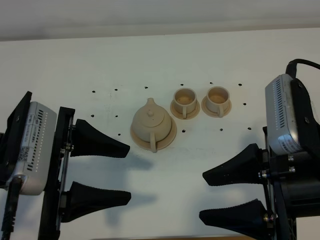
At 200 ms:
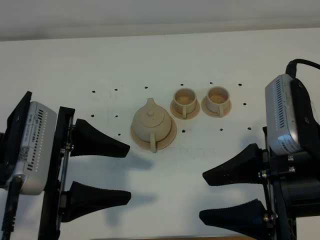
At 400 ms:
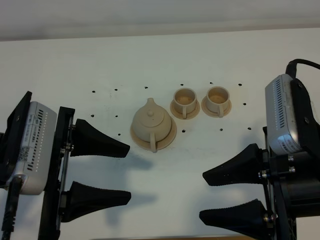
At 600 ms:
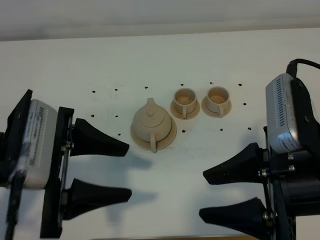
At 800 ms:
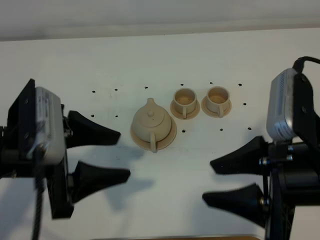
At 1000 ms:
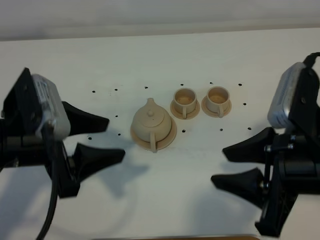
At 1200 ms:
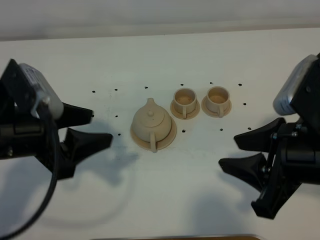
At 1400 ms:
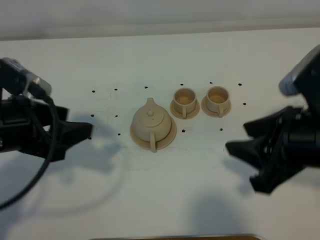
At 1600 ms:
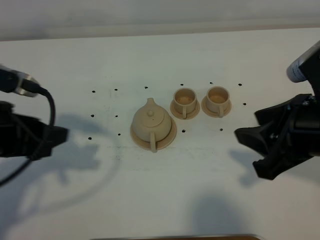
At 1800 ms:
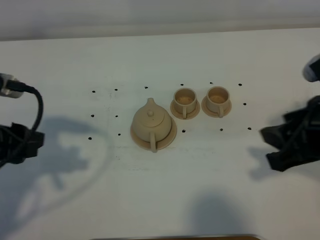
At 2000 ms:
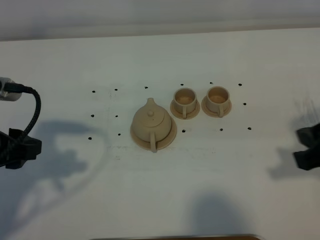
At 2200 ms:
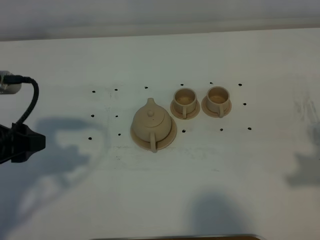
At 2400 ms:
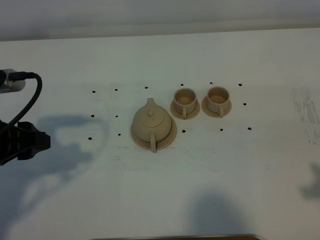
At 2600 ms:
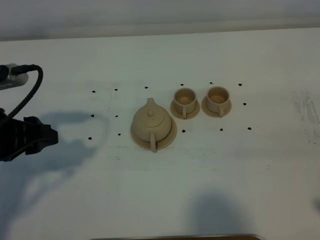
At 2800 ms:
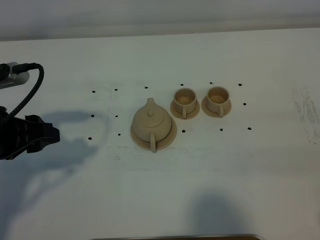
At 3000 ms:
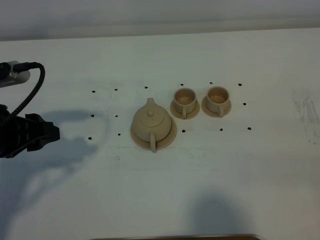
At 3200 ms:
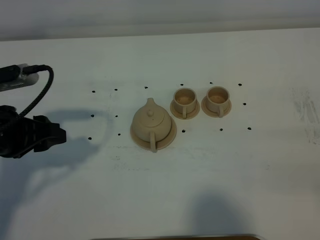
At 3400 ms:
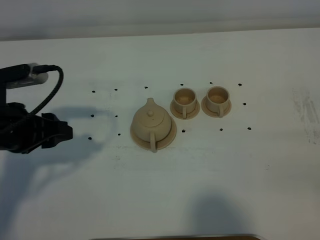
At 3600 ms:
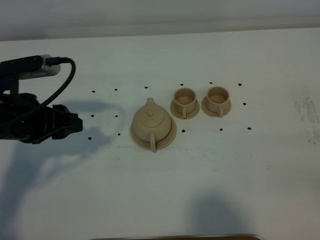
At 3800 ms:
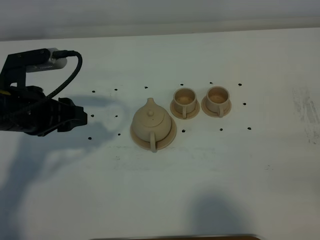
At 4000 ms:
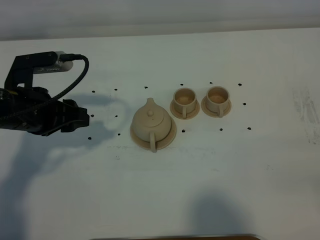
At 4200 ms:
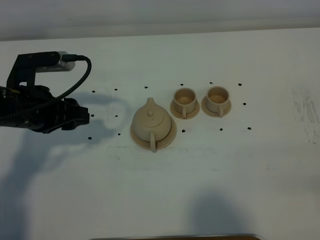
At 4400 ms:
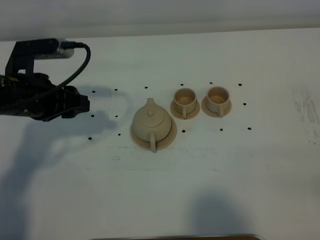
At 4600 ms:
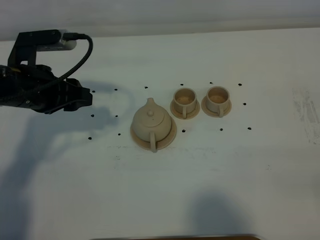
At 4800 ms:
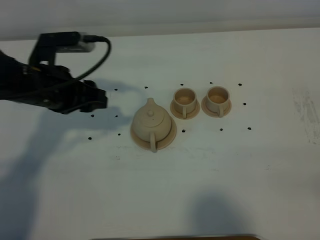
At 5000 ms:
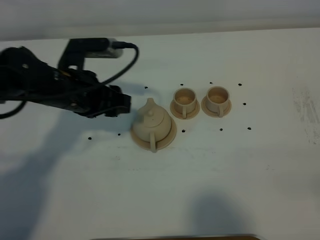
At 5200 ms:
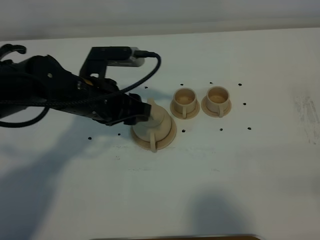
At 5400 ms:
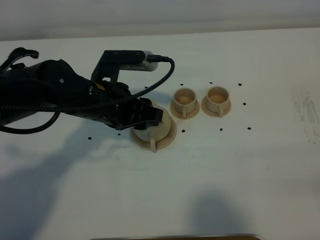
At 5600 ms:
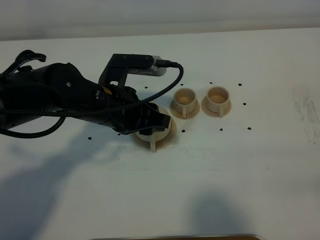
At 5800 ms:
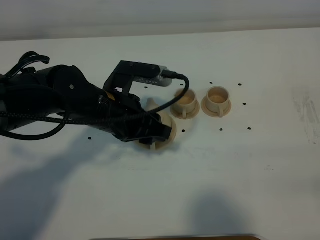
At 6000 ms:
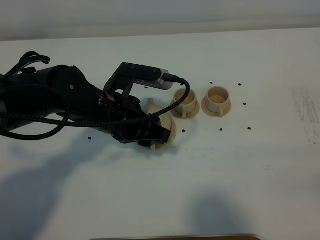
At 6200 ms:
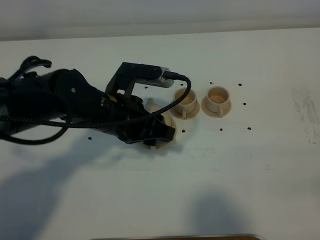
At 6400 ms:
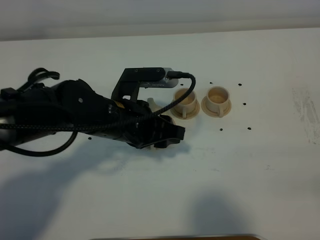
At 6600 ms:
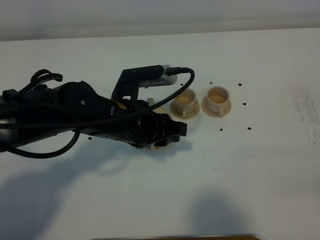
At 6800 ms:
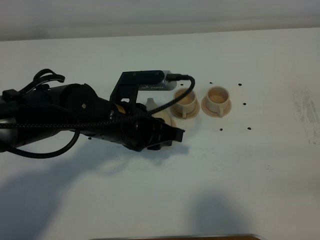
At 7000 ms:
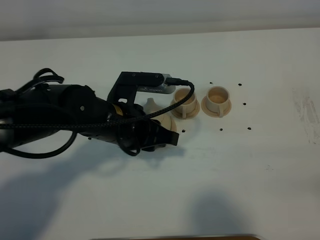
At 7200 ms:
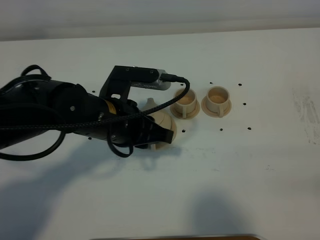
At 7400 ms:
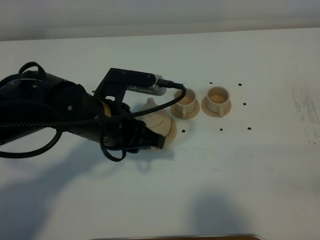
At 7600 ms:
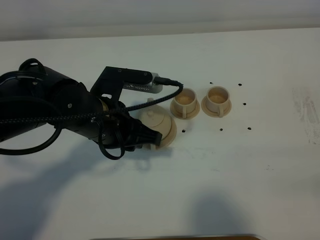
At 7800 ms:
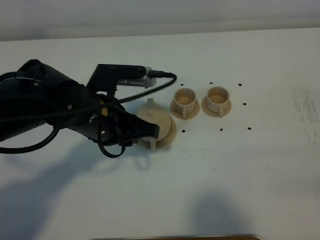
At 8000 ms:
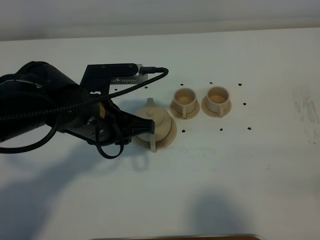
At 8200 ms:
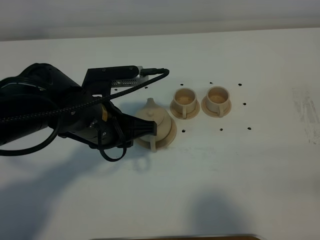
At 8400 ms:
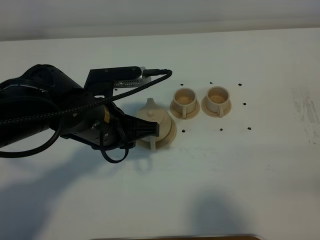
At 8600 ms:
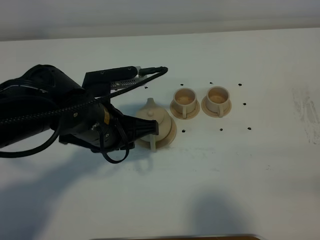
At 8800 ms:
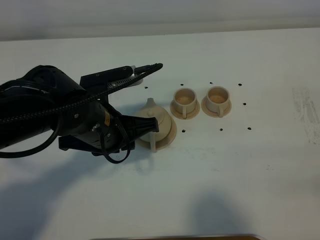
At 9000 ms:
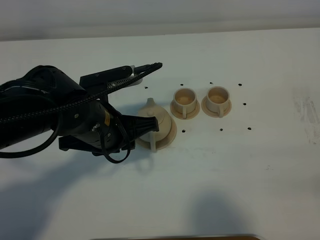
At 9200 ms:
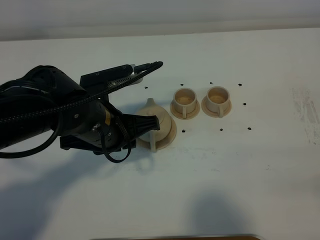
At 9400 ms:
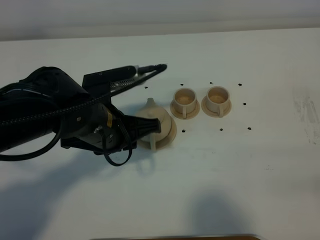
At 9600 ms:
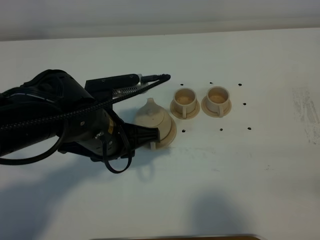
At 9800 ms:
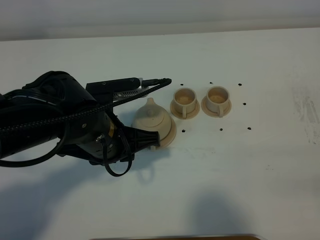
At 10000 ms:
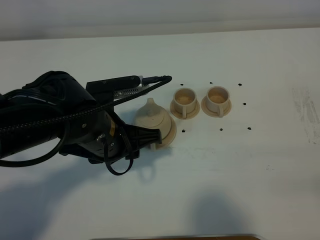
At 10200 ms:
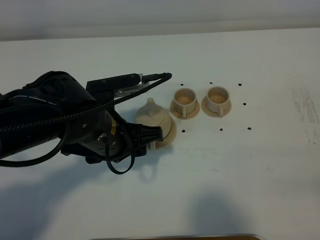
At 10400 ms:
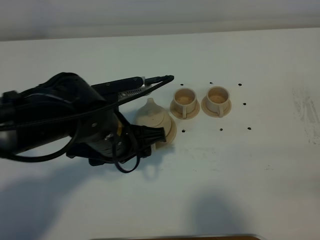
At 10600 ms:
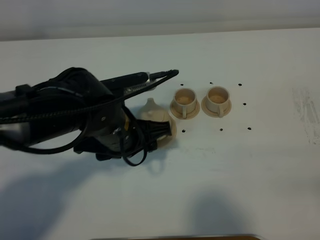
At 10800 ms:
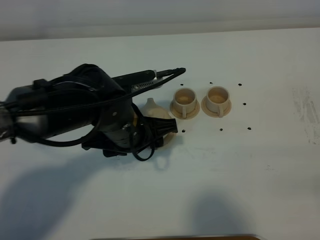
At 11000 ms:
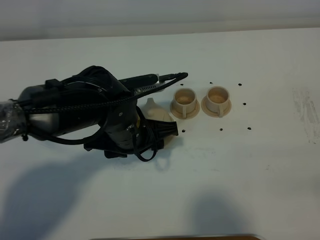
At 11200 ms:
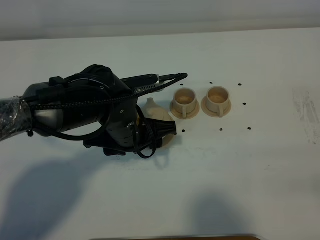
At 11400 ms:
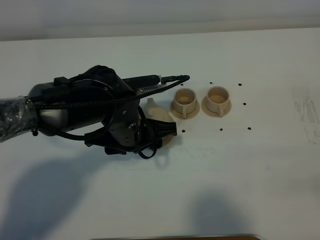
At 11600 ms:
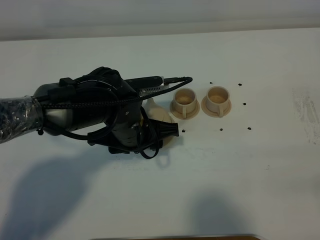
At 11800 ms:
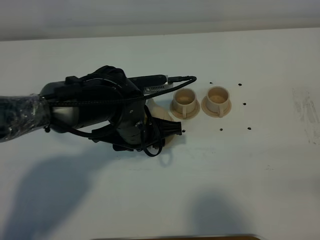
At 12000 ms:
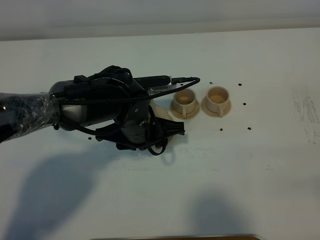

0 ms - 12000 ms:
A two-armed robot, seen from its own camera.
Task of the whole recording: grasp the brown teapot and pour the tea into the two brown teacups one by one, put the brown teapot back in its original place.
0 ms - 1600 ms: The right gripper is displaced forward by about 5 cm. The left gripper shifts about 10 cm to the left.
1600 ms - 3000 ms: The right gripper goes about 15 cm backward and to the right.
3000 ms - 4400 ms: The left gripper heads forward, covering approximately 10 cm.
4400 ms - 6000 ms: The left gripper shifts about 15 cm to the right.
6000 ms - 7600 ms: There are only small adjustments of the grippers.
9000 ms - 10400 ms: The left gripper opens up.
10400 ms - 12000 ms: The left gripper moves approximately 10 cm.

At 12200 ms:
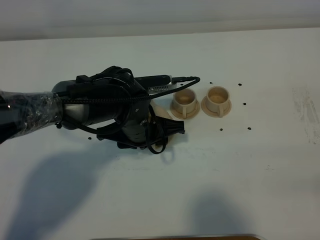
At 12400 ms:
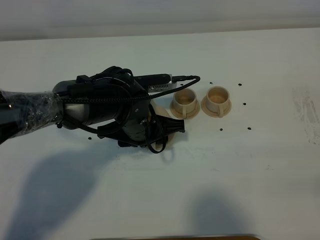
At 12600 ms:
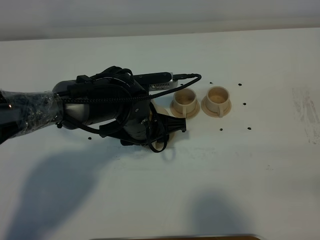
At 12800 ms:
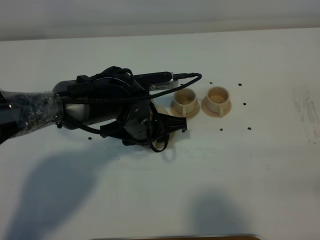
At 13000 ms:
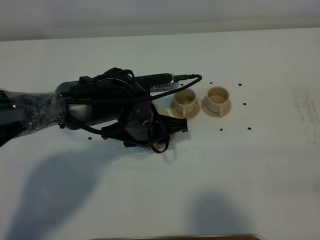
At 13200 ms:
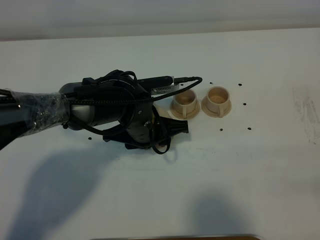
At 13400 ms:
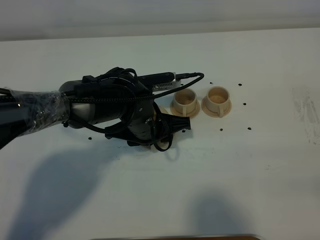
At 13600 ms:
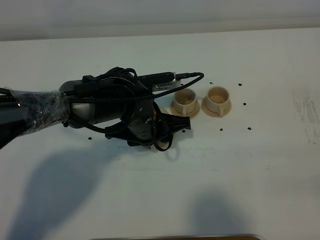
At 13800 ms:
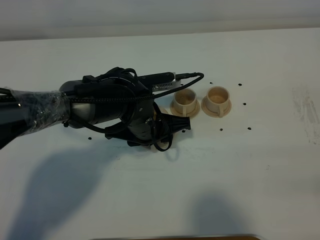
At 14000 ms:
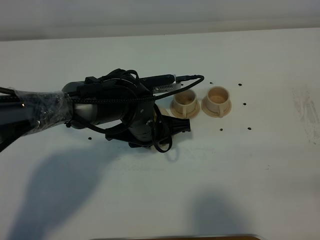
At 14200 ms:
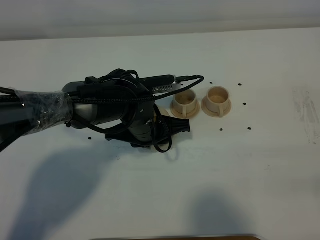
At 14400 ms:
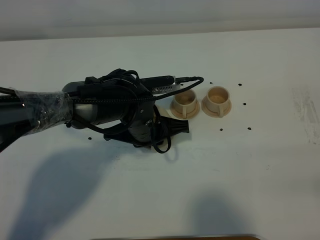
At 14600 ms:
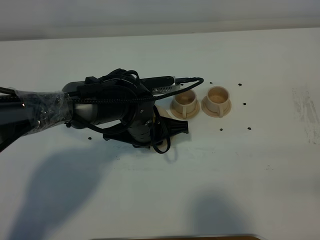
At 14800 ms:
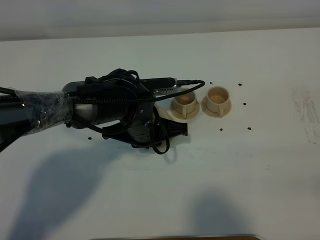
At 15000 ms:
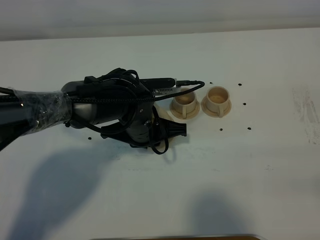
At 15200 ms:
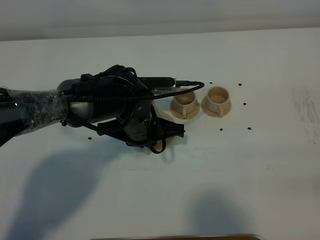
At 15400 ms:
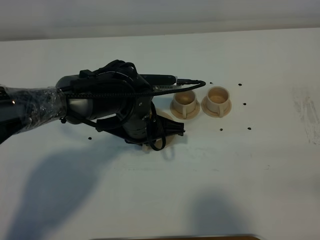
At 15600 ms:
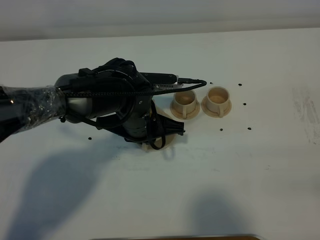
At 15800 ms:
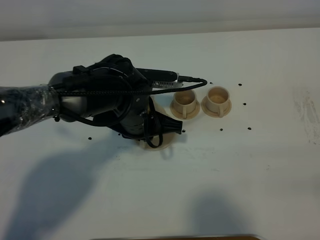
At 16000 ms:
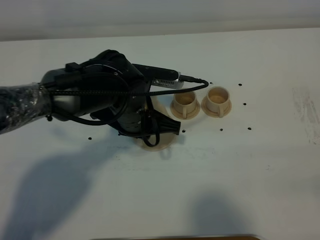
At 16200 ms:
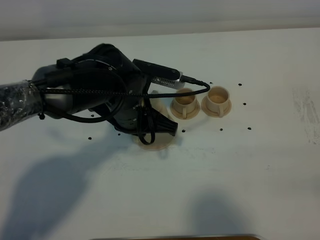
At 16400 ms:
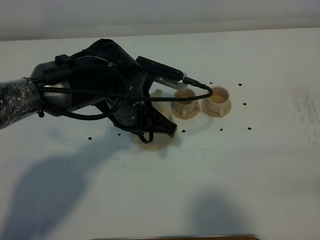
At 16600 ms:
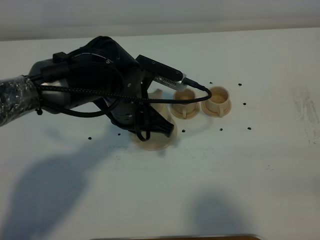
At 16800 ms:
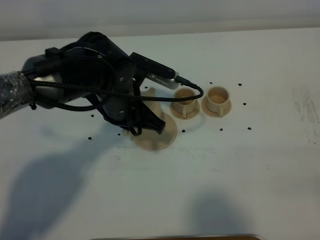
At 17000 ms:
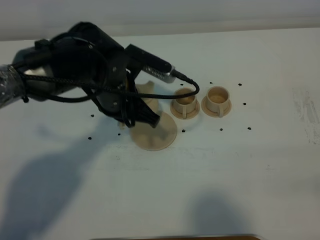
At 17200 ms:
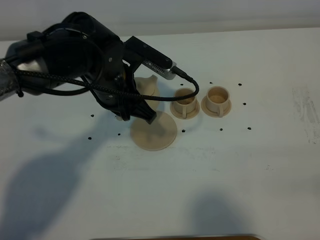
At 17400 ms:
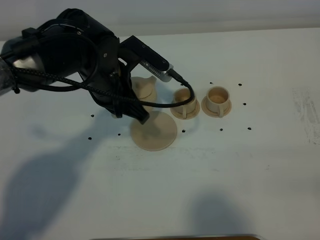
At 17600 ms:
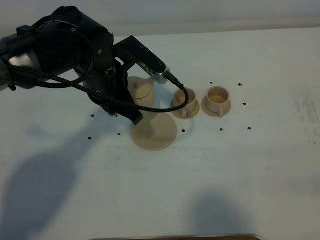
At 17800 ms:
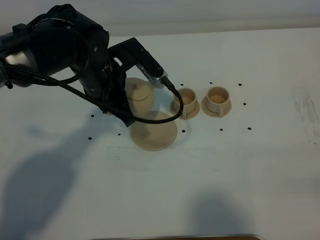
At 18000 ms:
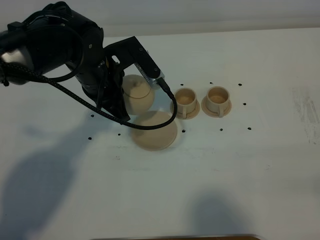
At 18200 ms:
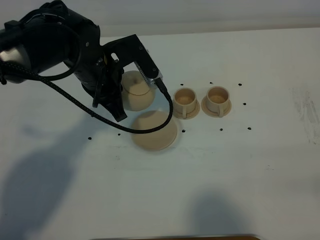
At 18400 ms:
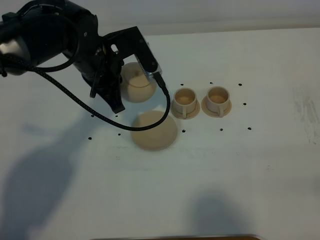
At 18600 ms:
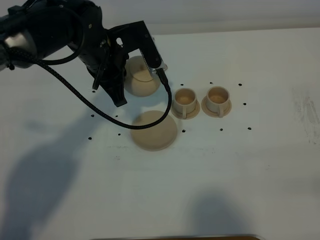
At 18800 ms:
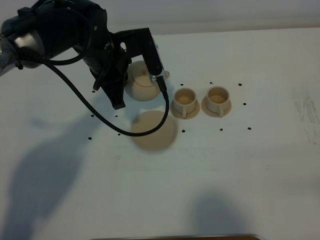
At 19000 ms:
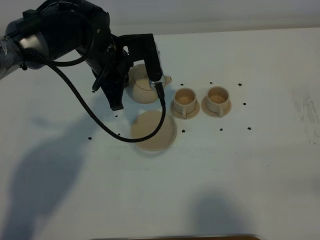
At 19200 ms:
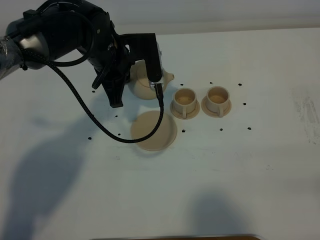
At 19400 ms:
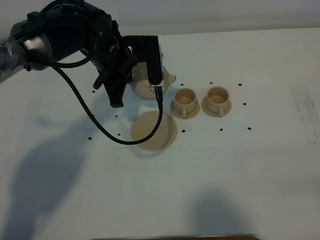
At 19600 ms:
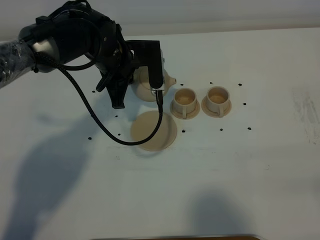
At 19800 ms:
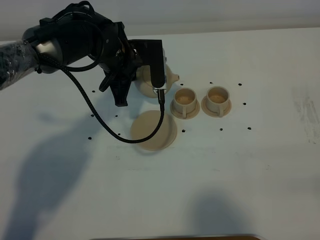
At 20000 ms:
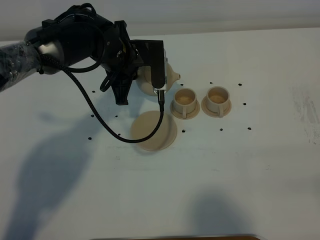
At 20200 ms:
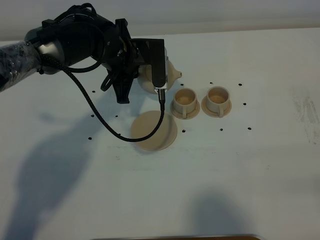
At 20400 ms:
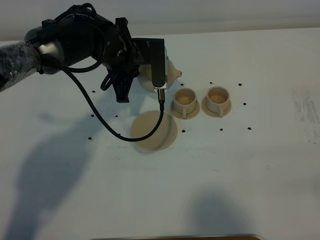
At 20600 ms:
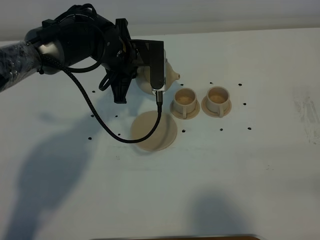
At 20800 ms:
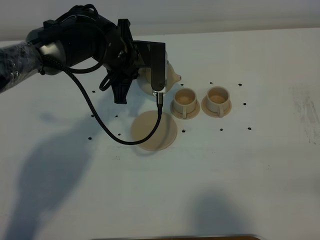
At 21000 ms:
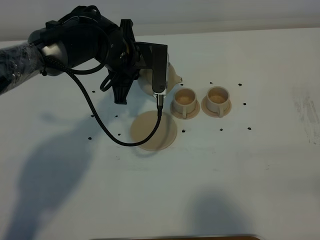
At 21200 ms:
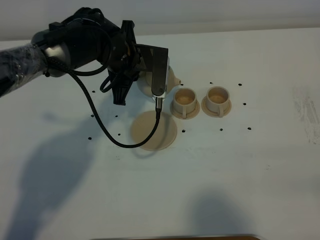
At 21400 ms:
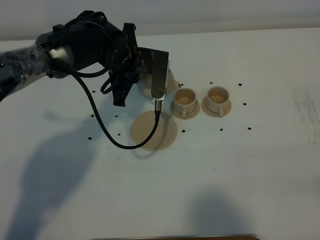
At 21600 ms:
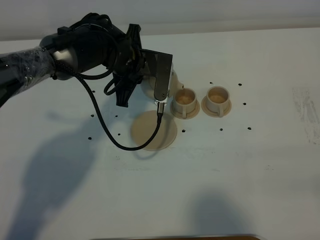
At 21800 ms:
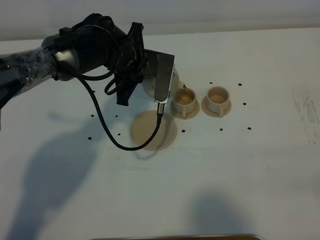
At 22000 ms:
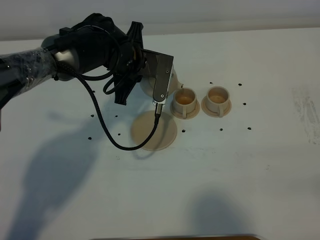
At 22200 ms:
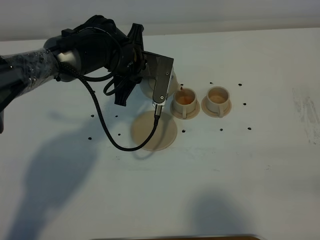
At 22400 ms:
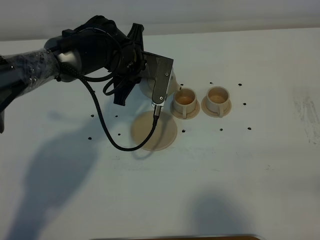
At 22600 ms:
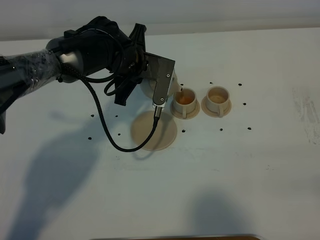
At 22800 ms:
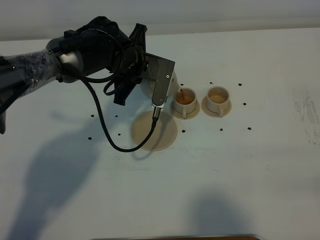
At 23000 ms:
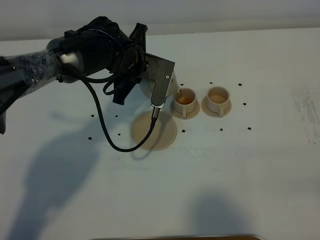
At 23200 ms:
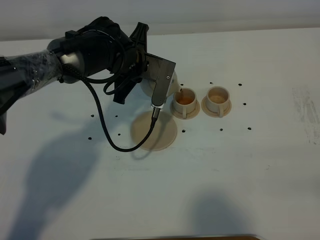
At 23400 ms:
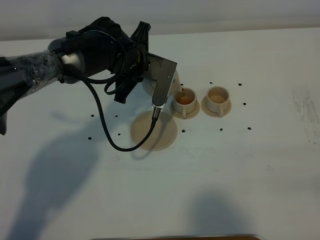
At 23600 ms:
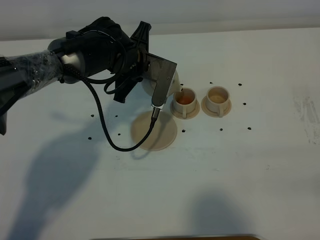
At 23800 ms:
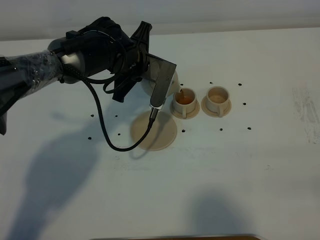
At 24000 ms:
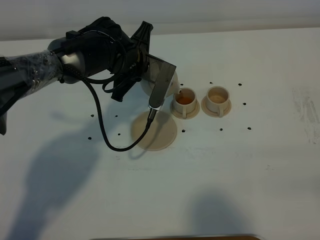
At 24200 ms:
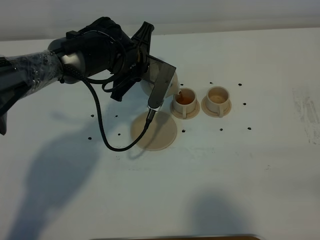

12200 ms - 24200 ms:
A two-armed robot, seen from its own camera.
Task of the whole recording: grasp the brown teapot and pour the tea into the two brown teacups one by one, put the brown teapot back in its original place.
Step, 12200 ms - 16200 ms: Pick up the teapot with the left gripper.
12200 ms - 13800 ms: The two grippers keep their place.
13800 ms - 15200 ms: The left gripper closes its fingers.
15200 ms - 16600 ms: The left gripper is displaced upward by about 5 cm.
16600 ms - 18200 ms: The left gripper is displaced to the left by some 5 cm.
18200 ms - 19800 ms: The left gripper changes place by approximately 5 cm.
19800 ms - 21200 ms: The grippers move only a little.
21200 ms - 22600 ms: The grippers make only small movements.
22600 ms - 24200 ms: The grippers move only a little.
